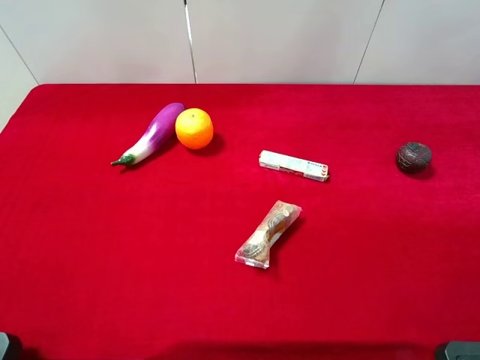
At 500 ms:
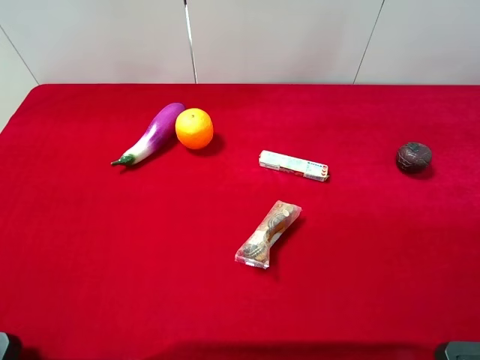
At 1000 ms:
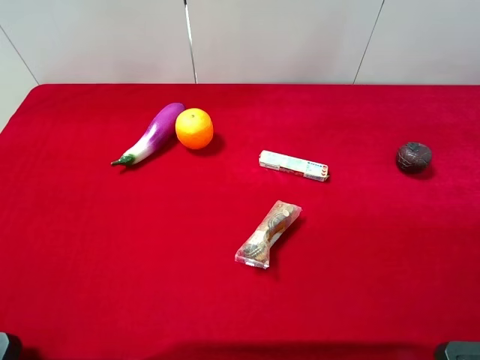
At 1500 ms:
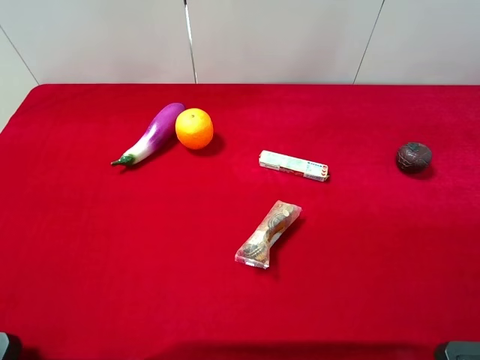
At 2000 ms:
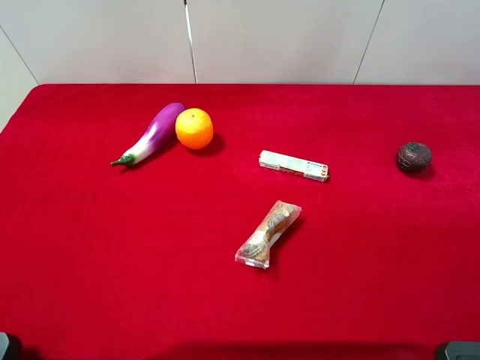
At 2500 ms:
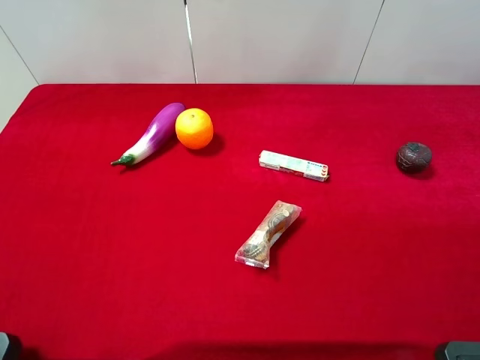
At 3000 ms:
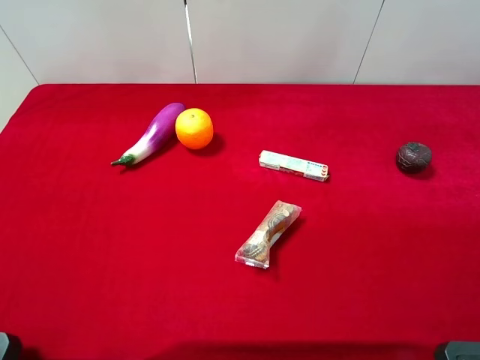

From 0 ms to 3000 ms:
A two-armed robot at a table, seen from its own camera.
Task of the whole recording: the gripper move the object.
From 1500 ms to 3000 ms: Neither gripper changes place.
